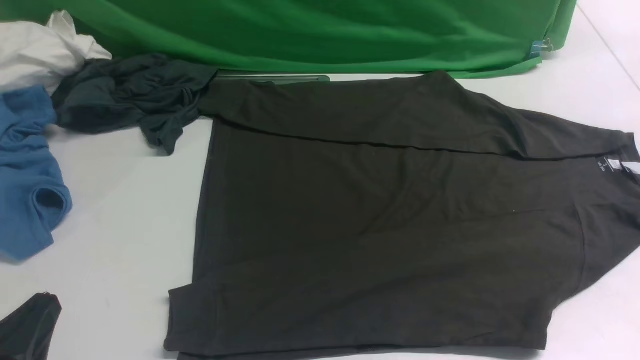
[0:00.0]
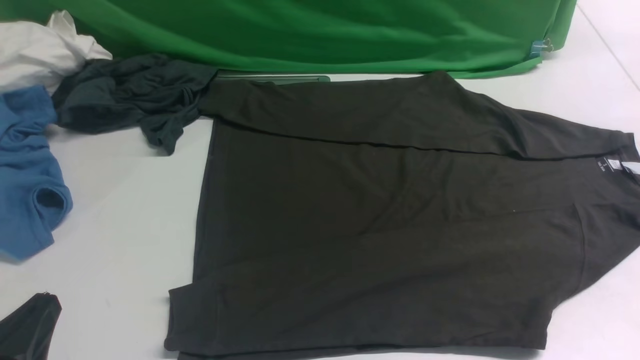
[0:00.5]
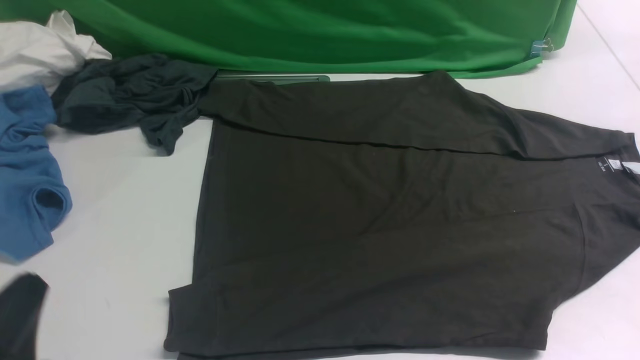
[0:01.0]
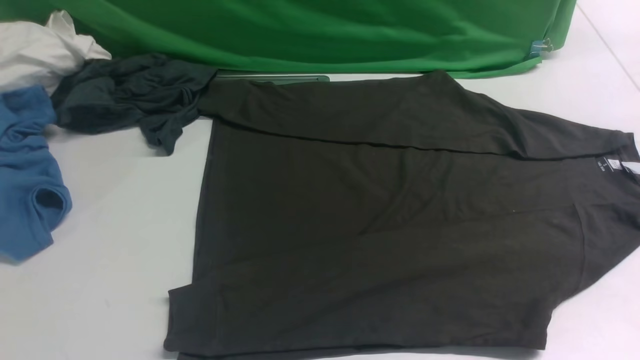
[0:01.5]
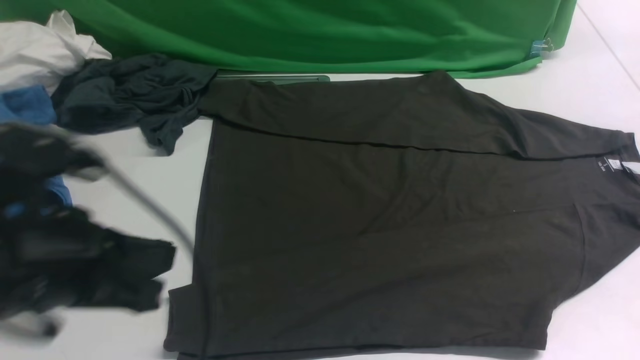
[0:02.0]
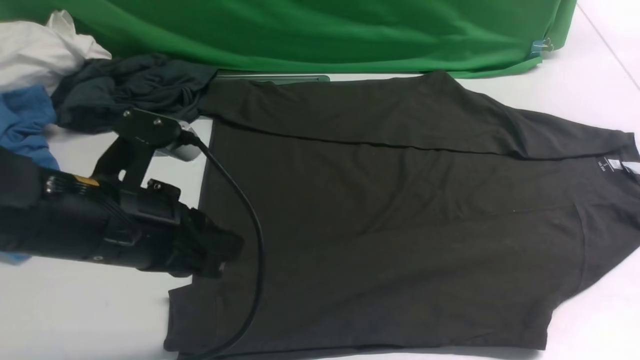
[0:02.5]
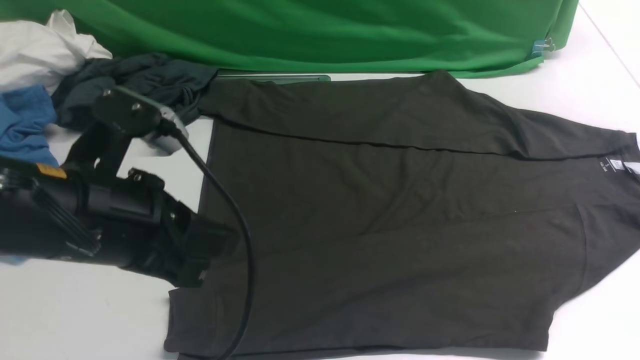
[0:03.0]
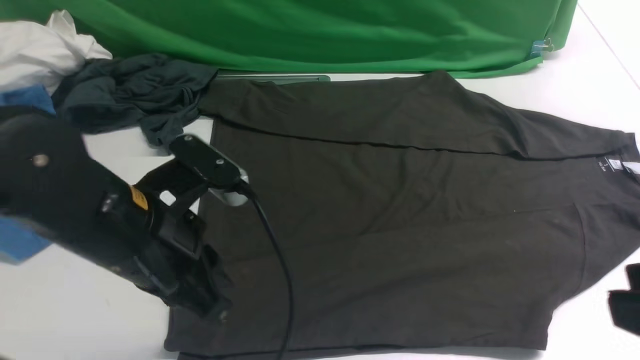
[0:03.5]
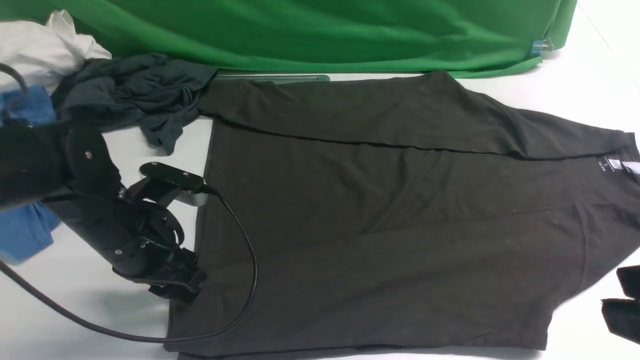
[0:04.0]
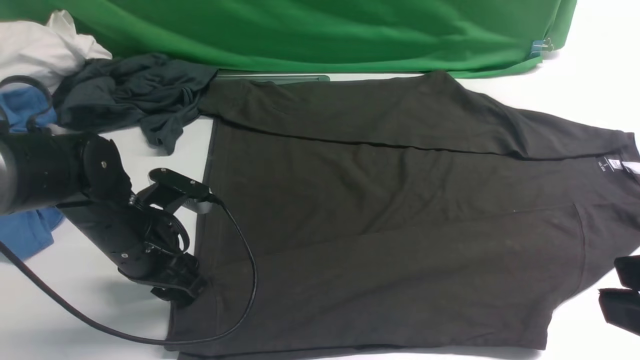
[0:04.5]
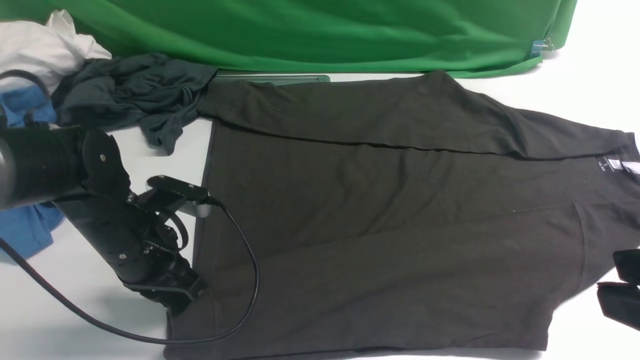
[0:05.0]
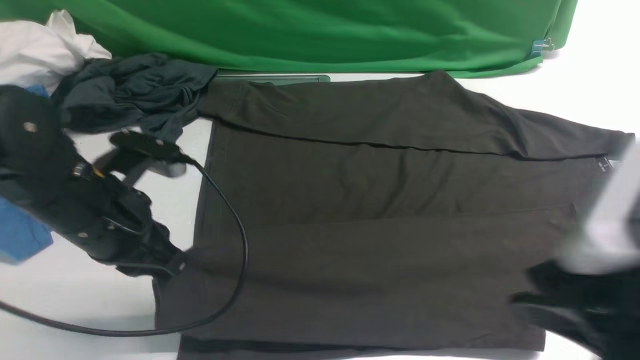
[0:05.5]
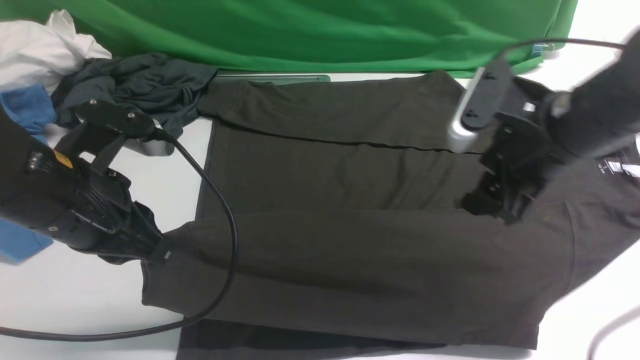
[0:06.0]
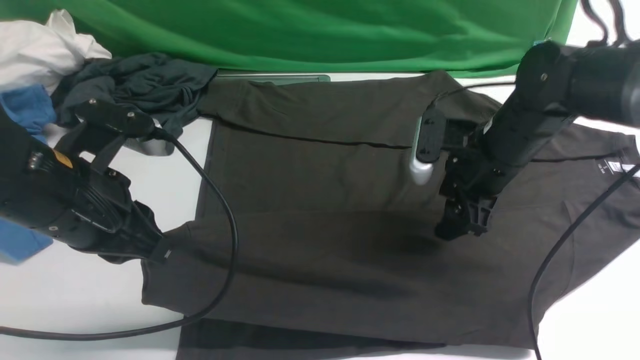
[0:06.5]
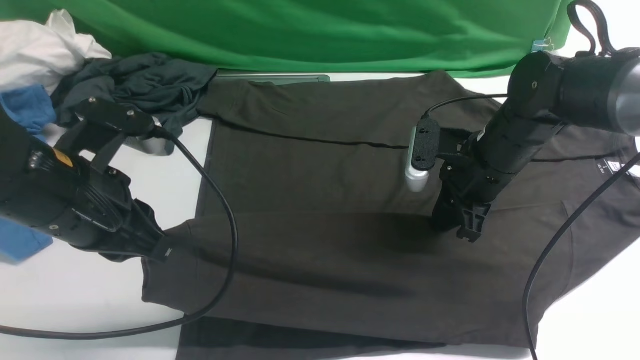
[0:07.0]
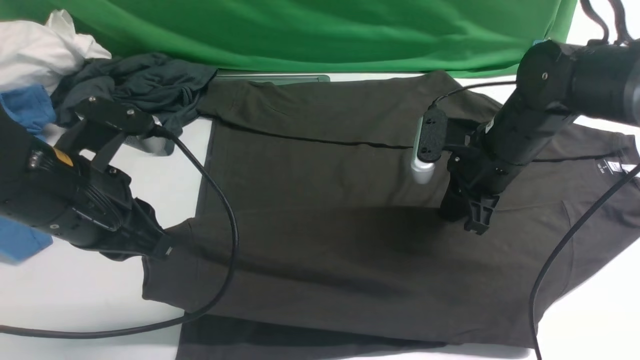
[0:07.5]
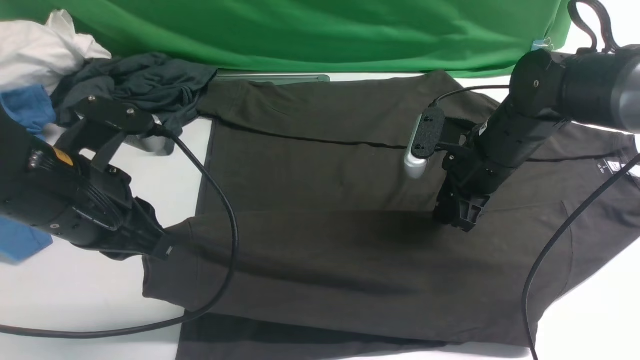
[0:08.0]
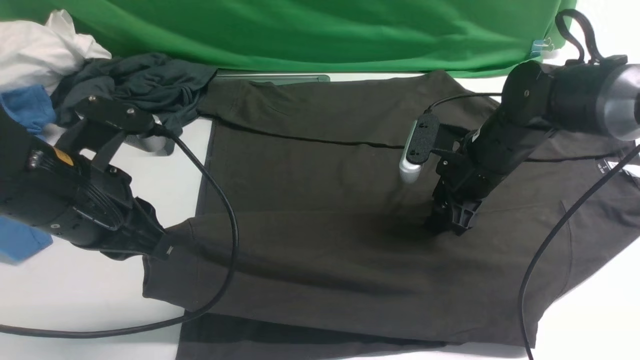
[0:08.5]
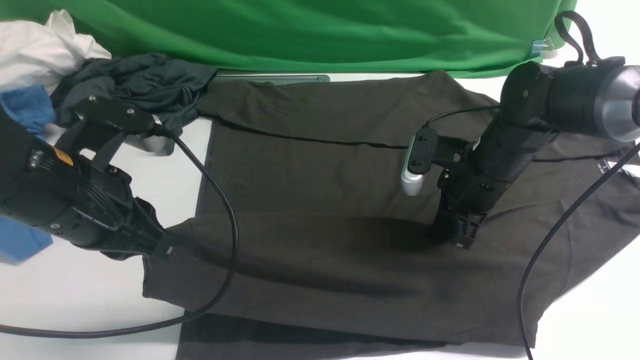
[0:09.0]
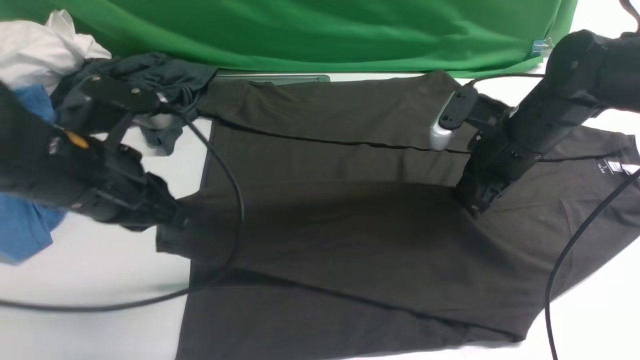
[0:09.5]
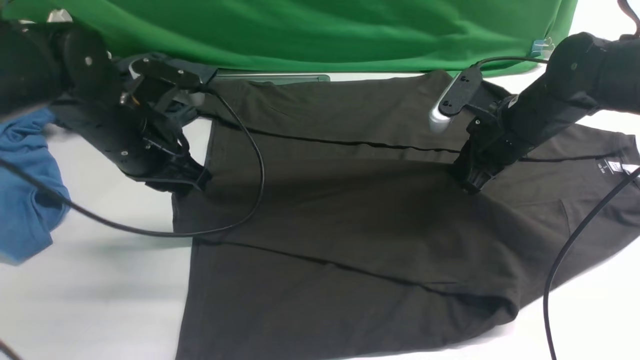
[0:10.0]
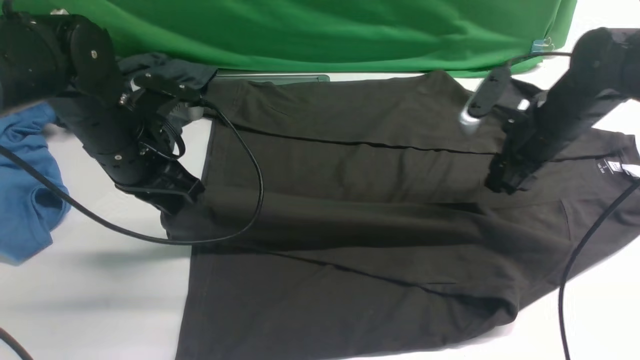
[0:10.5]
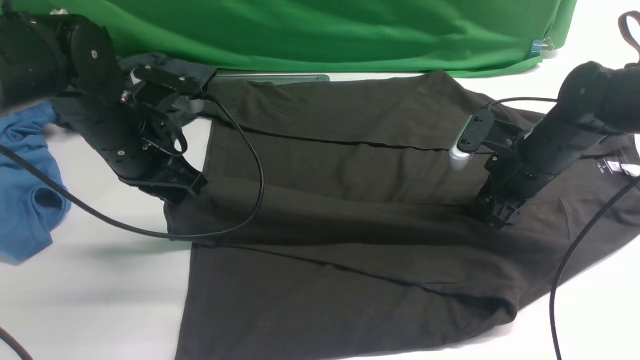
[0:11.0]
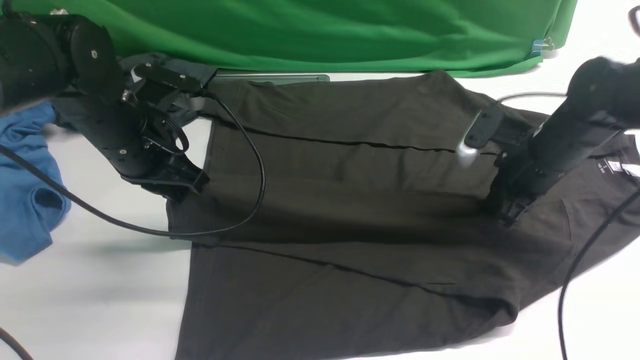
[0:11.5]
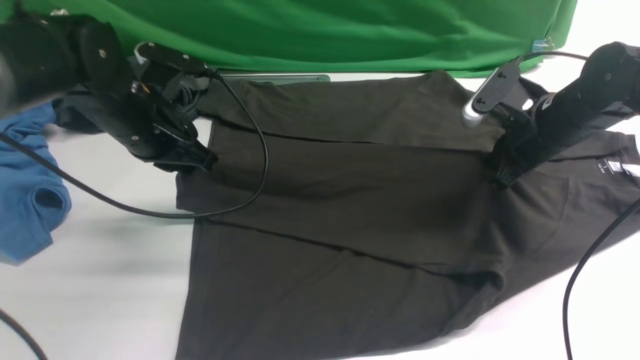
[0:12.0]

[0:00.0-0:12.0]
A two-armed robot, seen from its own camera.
Step, 0:00.0 to 0:05.0: use the left arm to clamp the cuff closest to it.
0:00.0 to 0:02.0: The left gripper shifts some 15 cm upward, forward and to the right.
0:02.0 to 0:04.0: The left gripper shifts about 15 cm forward and downward, and opens its fingers. Meanwhile the right gripper travels upward and to the left by some 20 cm.
0:04.0 to 0:06.0: The right gripper moves forward, approximately 25 cm, and opens its fingers, while the left gripper travels upward by about 10 cm, and closes.
0:06.0 to 0:08.0: The right gripper is displaced downward and forward by about 10 cm, and closes its fingers.
0:08.0 to 0:10.0: The left gripper goes roughly 10 cm forward.
0:10.0 to 0:12.0: The right gripper opens, then closes once more.

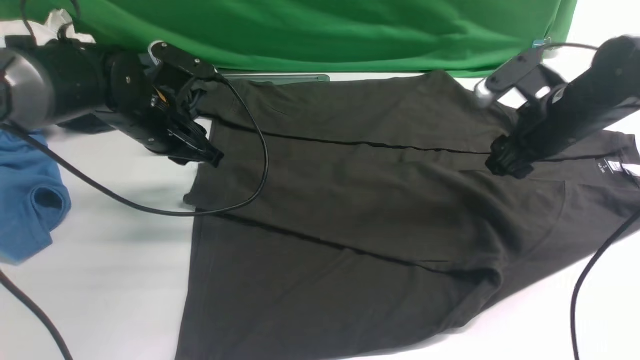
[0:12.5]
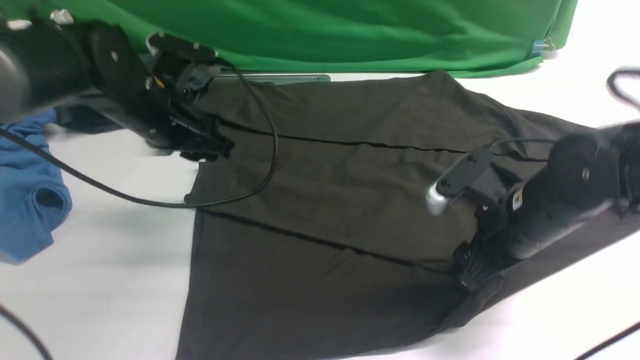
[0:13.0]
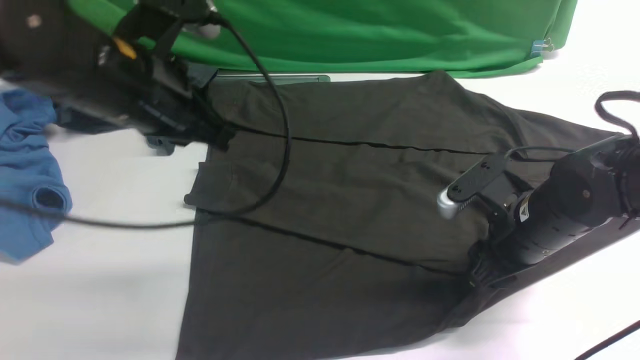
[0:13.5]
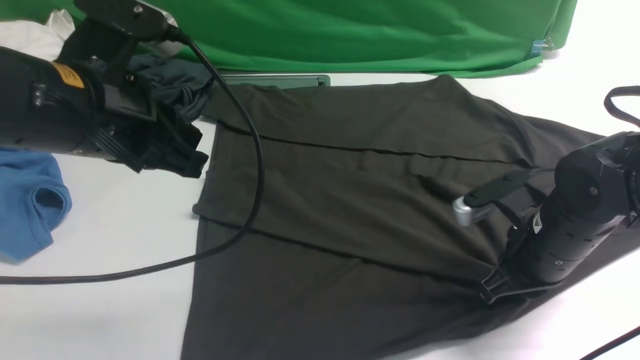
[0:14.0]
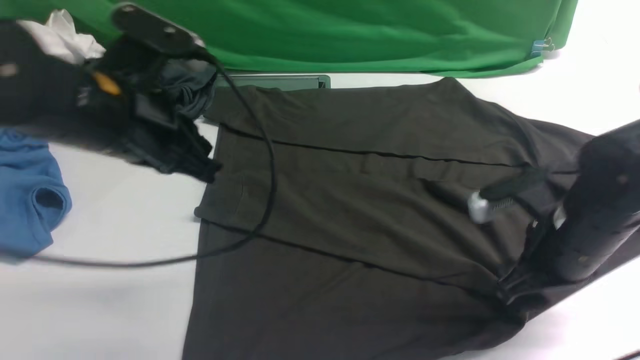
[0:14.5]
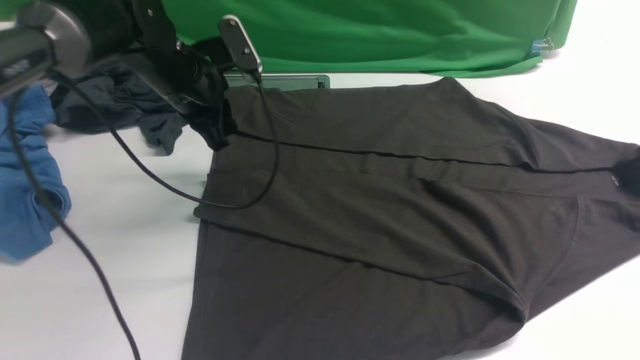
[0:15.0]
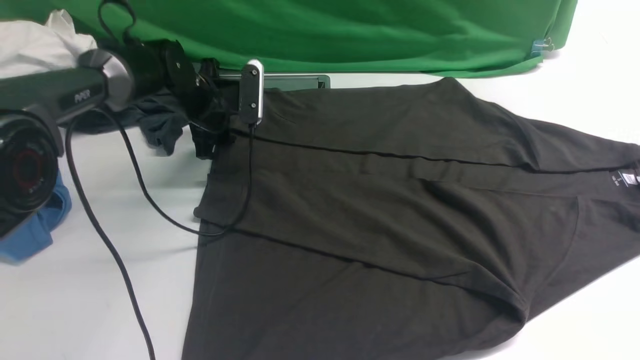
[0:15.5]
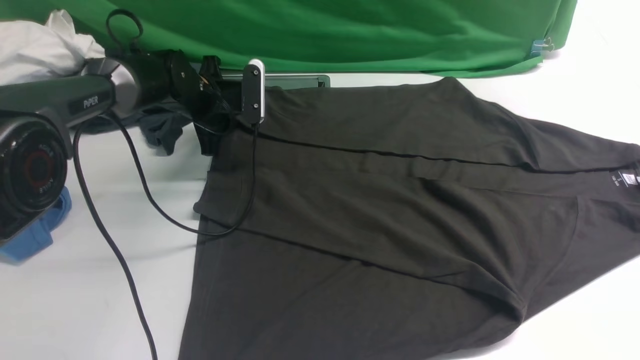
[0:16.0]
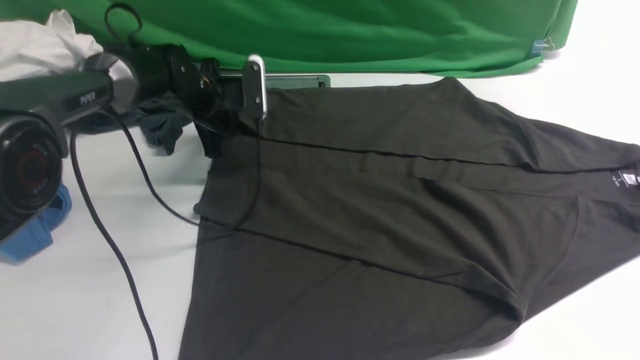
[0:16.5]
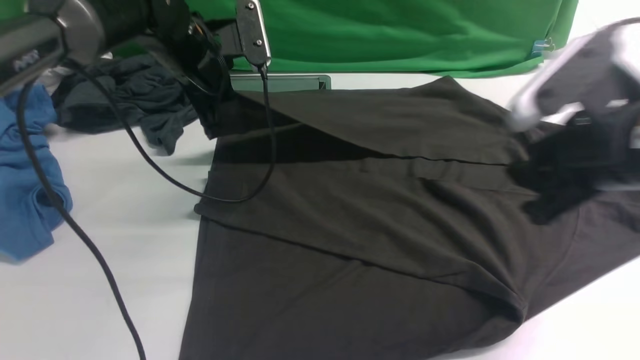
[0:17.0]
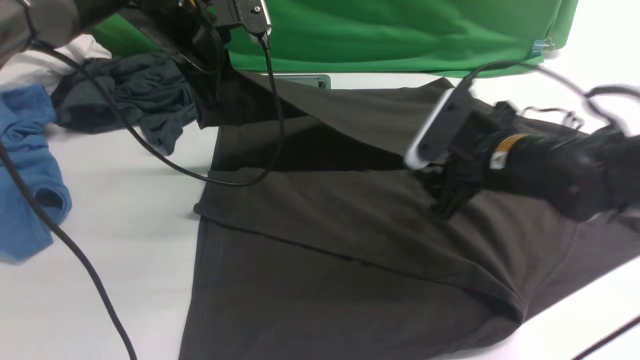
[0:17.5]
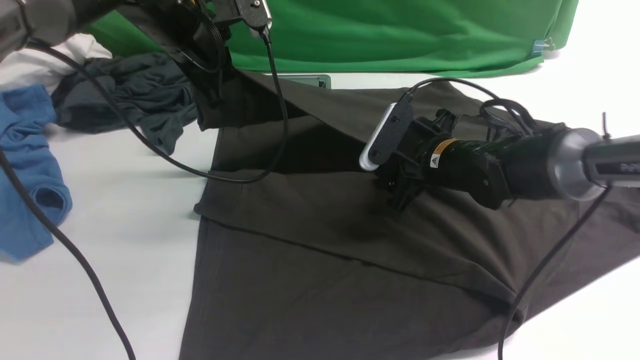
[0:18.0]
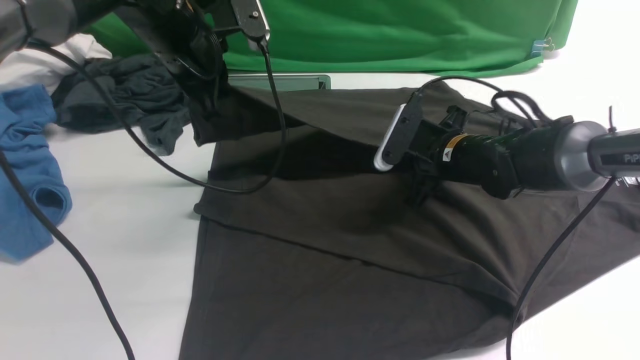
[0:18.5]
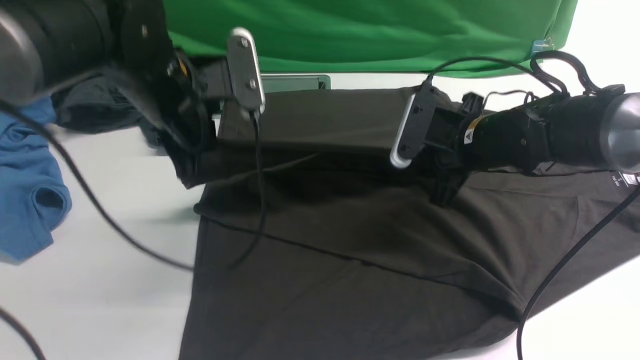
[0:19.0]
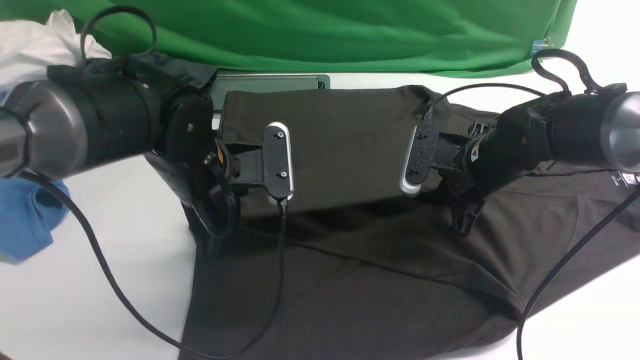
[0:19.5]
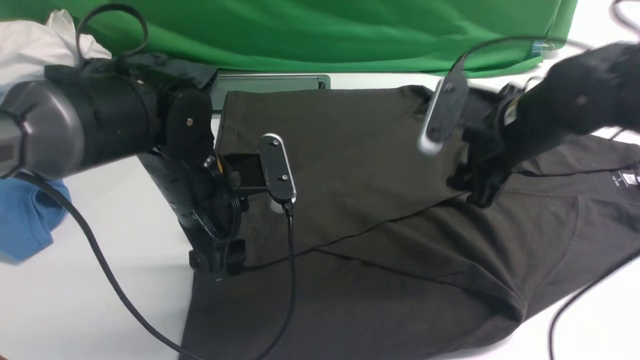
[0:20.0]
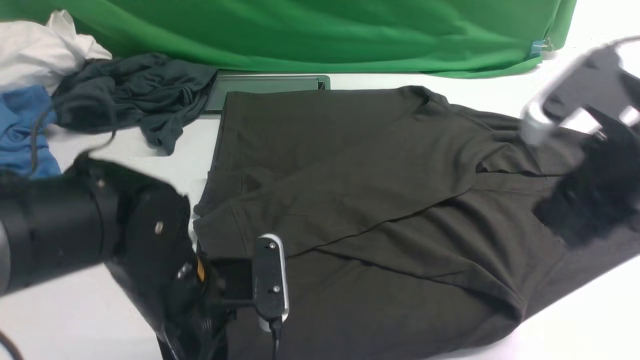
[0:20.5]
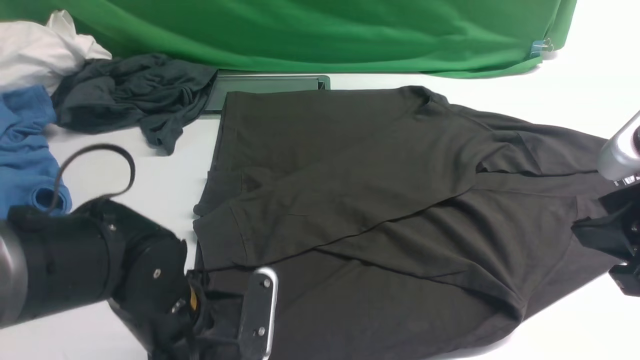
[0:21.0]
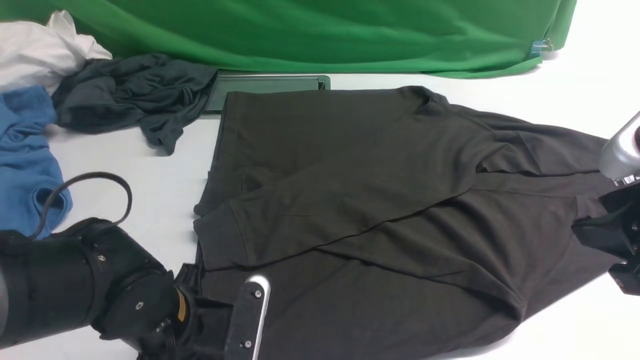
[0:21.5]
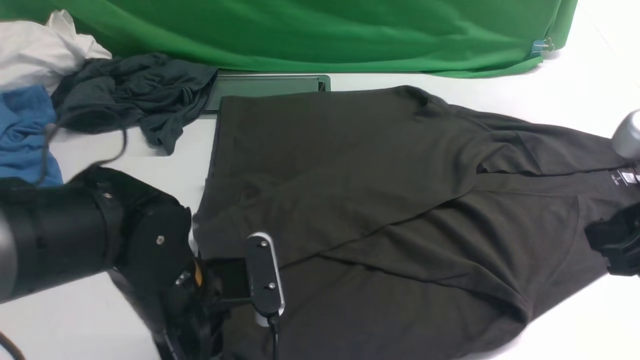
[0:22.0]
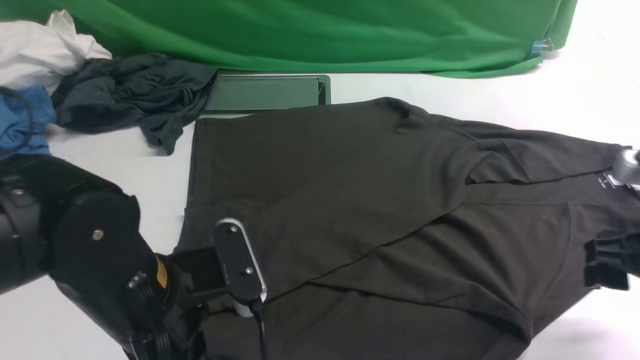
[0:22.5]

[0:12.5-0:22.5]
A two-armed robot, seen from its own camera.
Step, 0:13.0 to 0:16.0: use the left arm to clamp the cuff farthest from it.
Step, 0:16.5 to 0:20.0: use the left arm to drag and drop the cuff onto the cuff closest to the left arm.
0:12.5 to 0:14.5: The left gripper is displaced upward and backward by about 15 cm, and closes its fingers, while the right gripper goes some 10 cm backward, and closes and opens again.
0:14.5 to 0:16.5: The left gripper shifts about 25 cm forward and downward, and opens, then closes again, while the right gripper moves upward and backward, about 20 cm, and closes.
0:16.5 to 0:18.5: The right gripper heads forward, downward and to the left, covering about 40 cm, and opens, then closes once more. The left gripper travels upward and backward by approximately 15 cm.
0:18.5 to 0:20.5: The left gripper is displaced backward and downward by roughly 25 cm, and opens; the right gripper is displaced backward, upward and to the right by about 25 cm, and opens.
0:20.5 to 0:22.5: The right gripper goes approximately 10 cm downward and to the right, and opens up. The left gripper closes its fingers.
